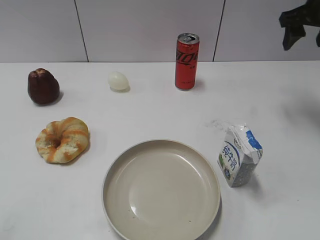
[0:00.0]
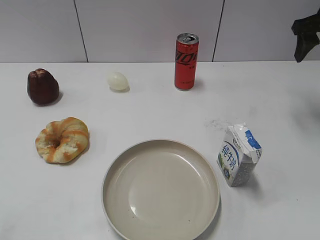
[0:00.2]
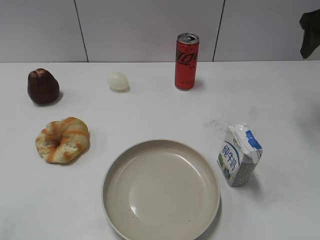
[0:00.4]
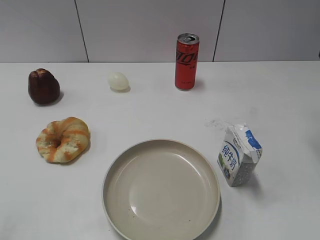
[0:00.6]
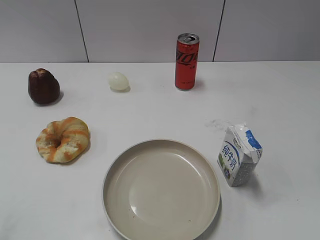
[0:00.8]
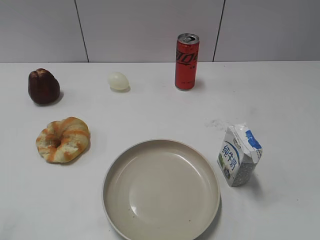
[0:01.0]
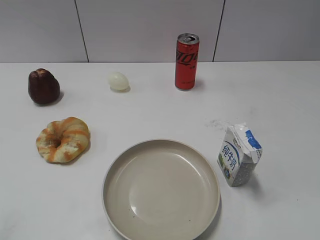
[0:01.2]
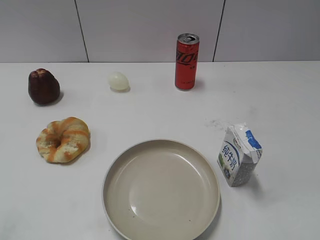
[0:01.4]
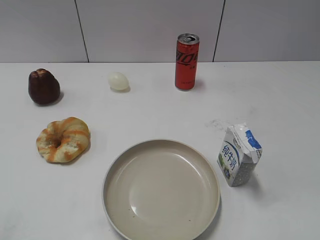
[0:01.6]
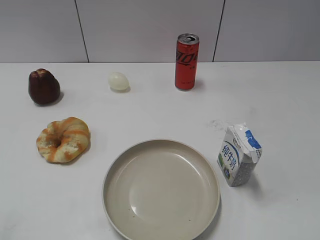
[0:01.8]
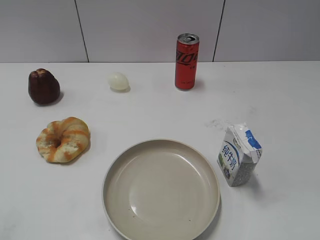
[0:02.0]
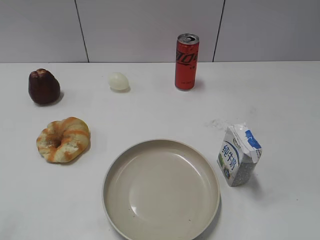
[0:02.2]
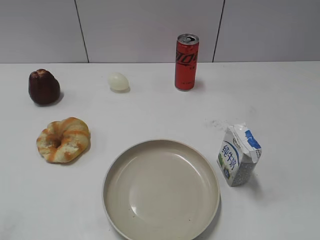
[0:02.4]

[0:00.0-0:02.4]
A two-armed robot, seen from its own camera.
0:00.0 to 0:01.2: The right gripper travels backward by about 30 cm.
